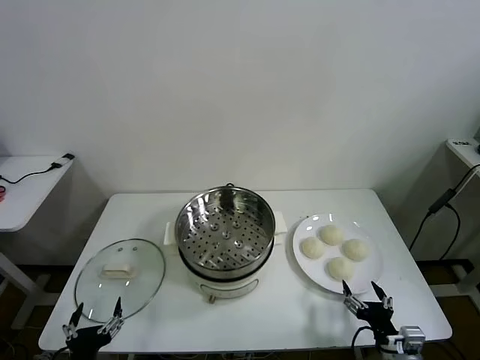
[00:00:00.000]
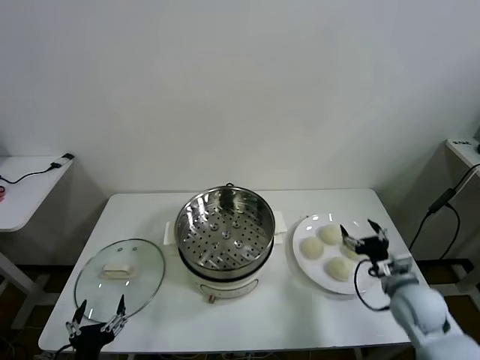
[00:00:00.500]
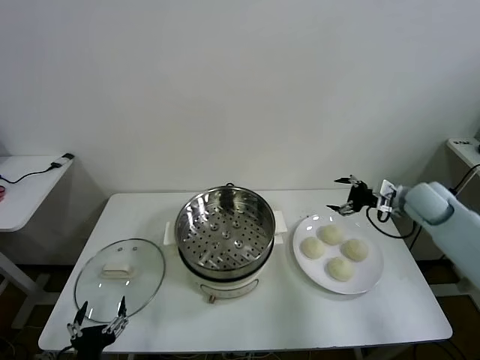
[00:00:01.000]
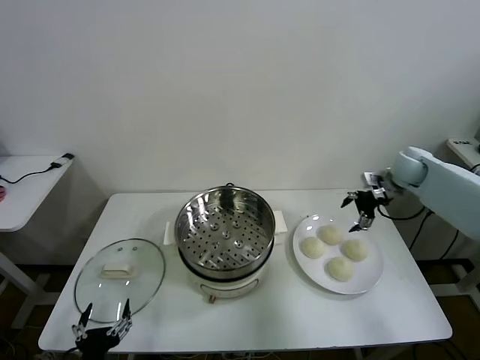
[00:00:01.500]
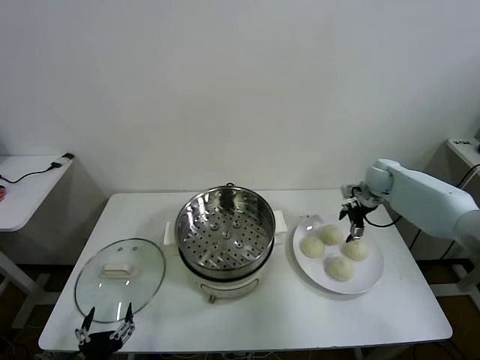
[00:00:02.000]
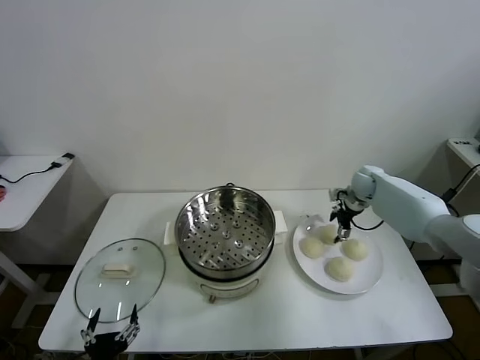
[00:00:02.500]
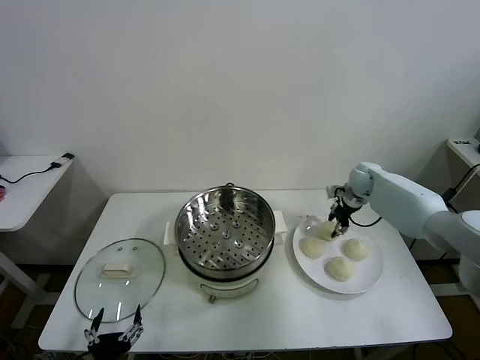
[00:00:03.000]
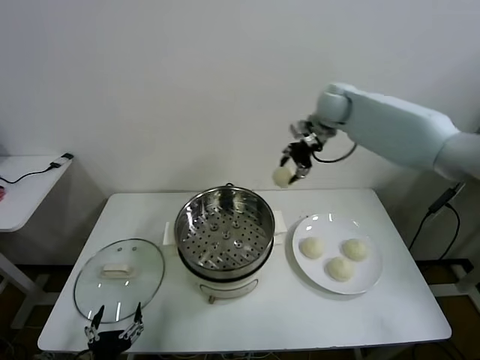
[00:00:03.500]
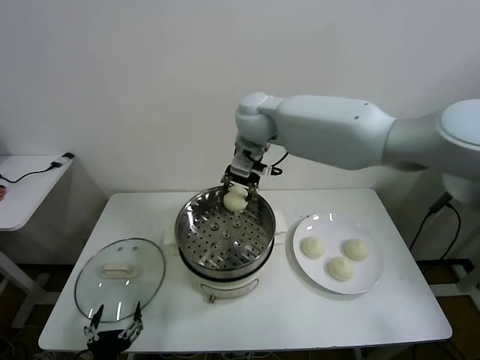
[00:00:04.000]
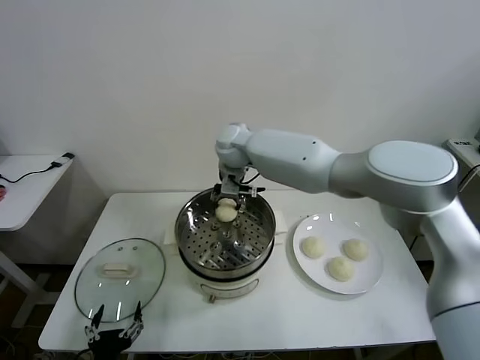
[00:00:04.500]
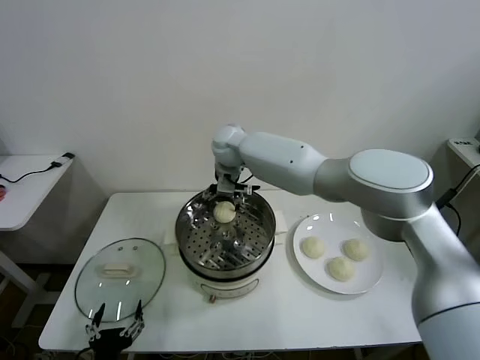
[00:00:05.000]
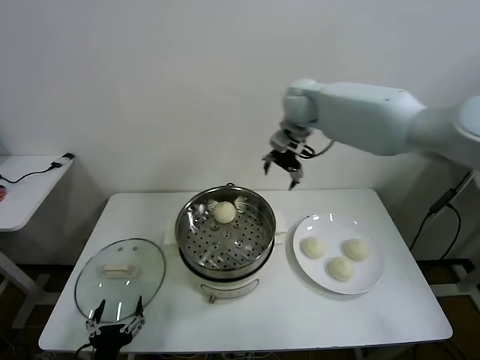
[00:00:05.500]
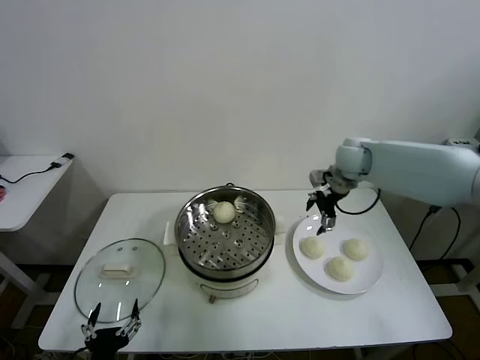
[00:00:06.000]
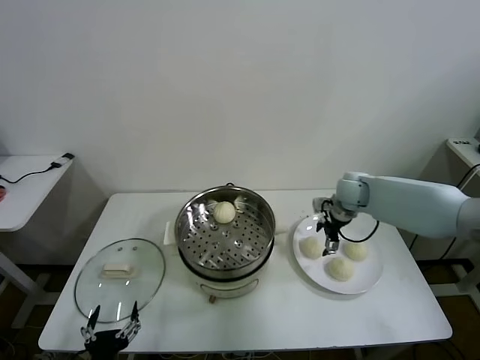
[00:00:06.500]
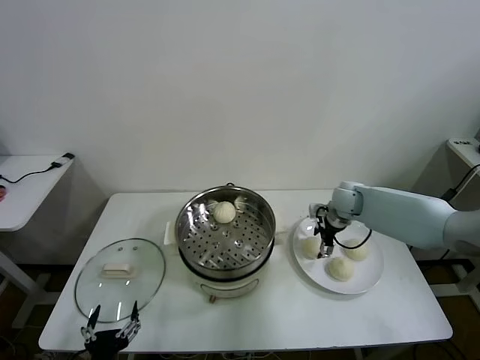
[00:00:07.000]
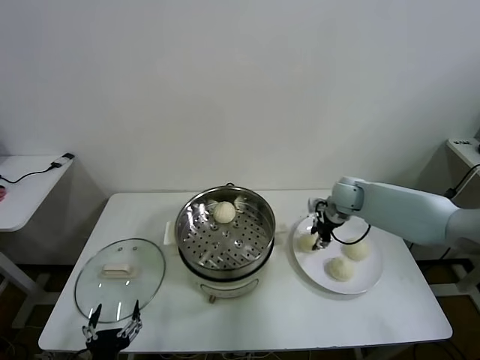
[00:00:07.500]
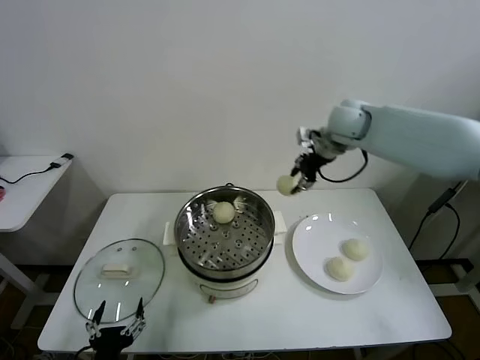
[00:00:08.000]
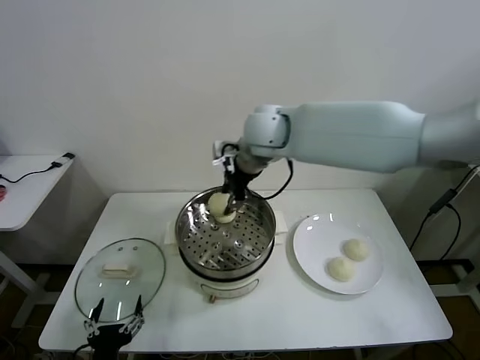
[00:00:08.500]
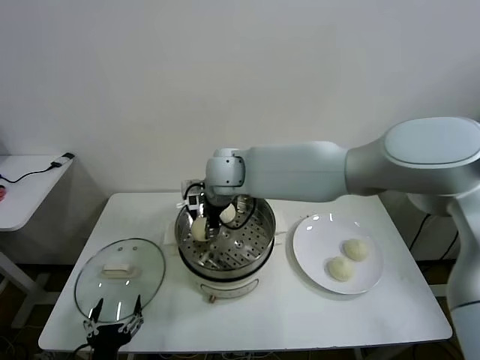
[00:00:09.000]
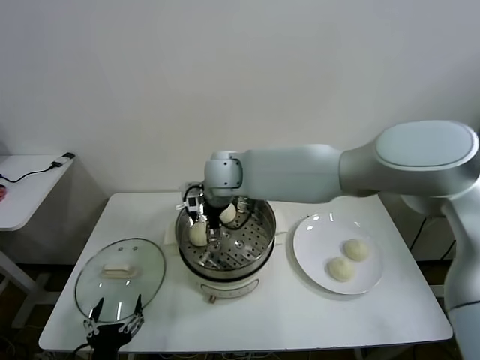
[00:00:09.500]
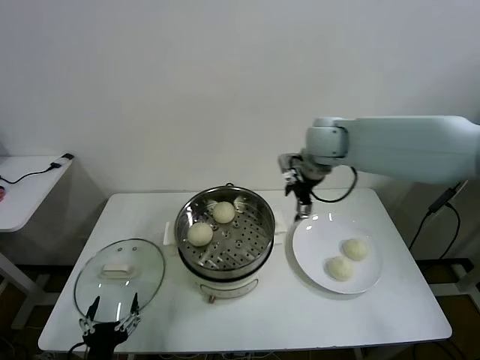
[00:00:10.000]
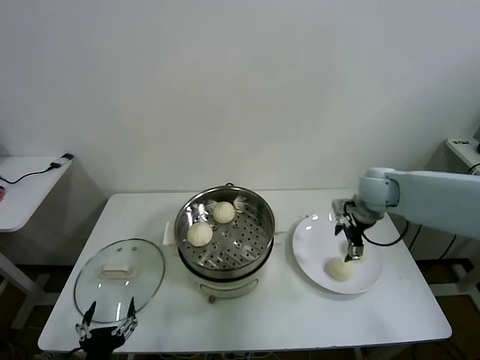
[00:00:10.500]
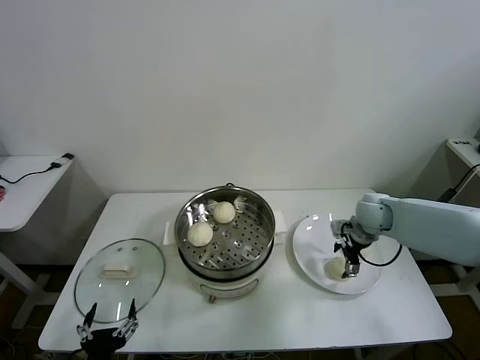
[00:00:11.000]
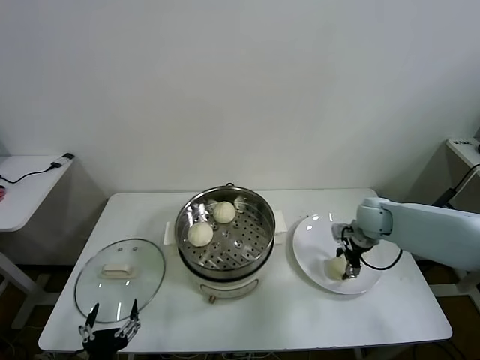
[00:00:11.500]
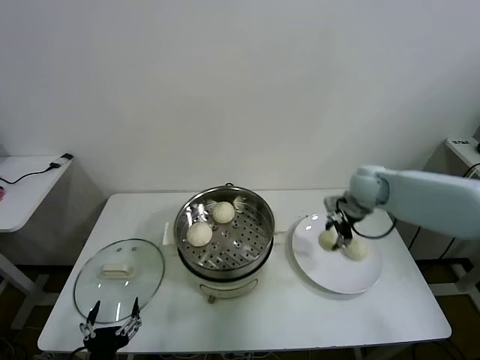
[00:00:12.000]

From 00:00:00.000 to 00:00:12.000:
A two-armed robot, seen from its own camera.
Task of the whole recording: take steamed baozi put them in steamer then cover it.
Step, from 00:00:00.000 to 00:00:02.500: Grasp the baozi in the plate with right gripper.
Step, from 00:00:03.000 to 00:00:04.500: Place the baozi on the steamer with right gripper.
Step, from 00:00:05.000 to 00:00:07.000: Grasp the baozi in the plate with right gripper.
Step, from 00:00:07.500 to 00:00:09.000: Place the baozi on the steamer with right gripper.
Step, from 00:00:09.500 to 00:00:11.500: Grasp the baozi in the plate with right gripper.
From 00:00:02.000 to 00:00:04.000: The right gripper is displaced to the left and upward by roughly 40 cm, and closes.
From 00:00:04.000 to 00:00:06.000: The right gripper travels to the right and downward by about 30 cm, and opens its fingers.
From 00:00:06.000 to 00:00:08.000: The right gripper shifts approximately 15 cm upward and to the left, and closes.
From 00:00:08.000 to 00:00:10.000: The right gripper shifts roughly 5 cm downward, moves some 25 cm to the left and comes back, and opens.
From 00:00:10.000 to 00:00:12.000: The right gripper is displaced downward and to the right by roughly 10 cm, and closes.

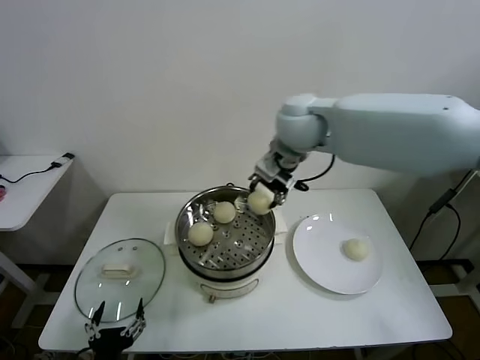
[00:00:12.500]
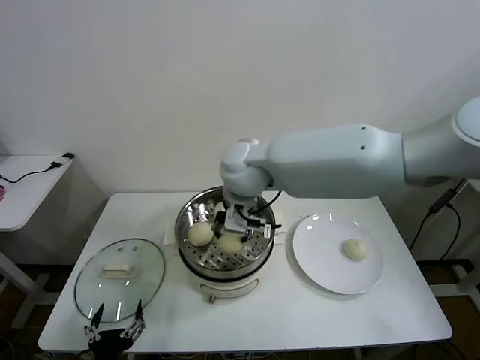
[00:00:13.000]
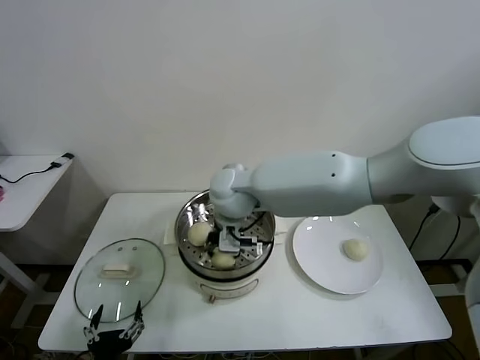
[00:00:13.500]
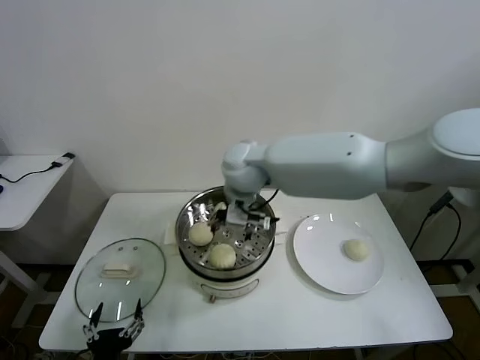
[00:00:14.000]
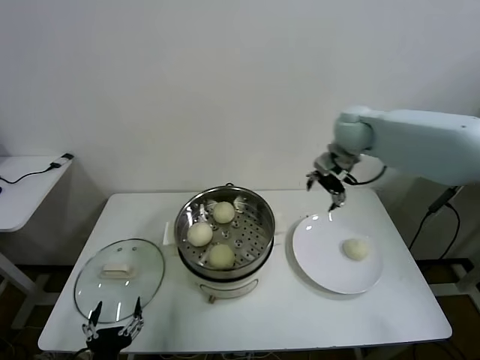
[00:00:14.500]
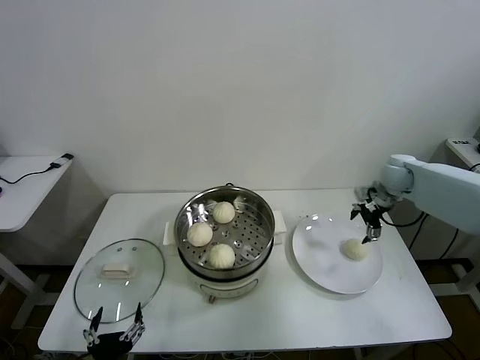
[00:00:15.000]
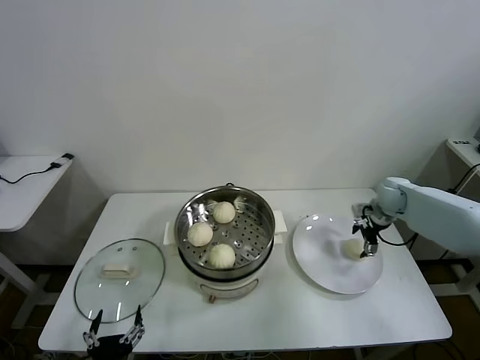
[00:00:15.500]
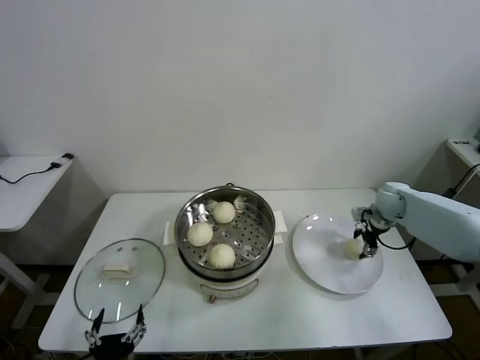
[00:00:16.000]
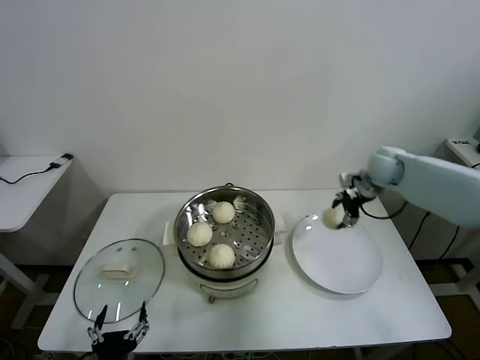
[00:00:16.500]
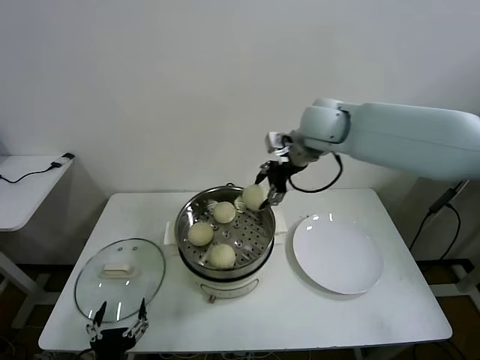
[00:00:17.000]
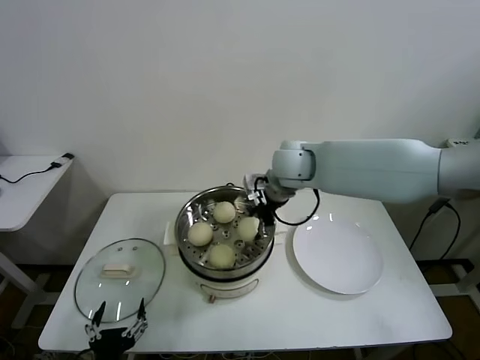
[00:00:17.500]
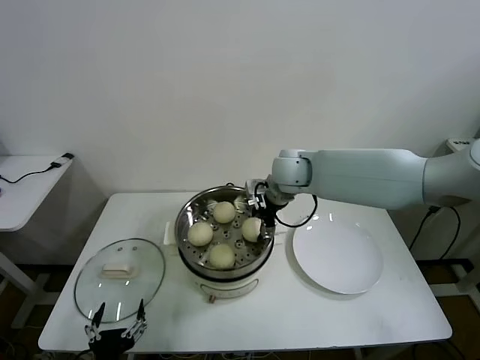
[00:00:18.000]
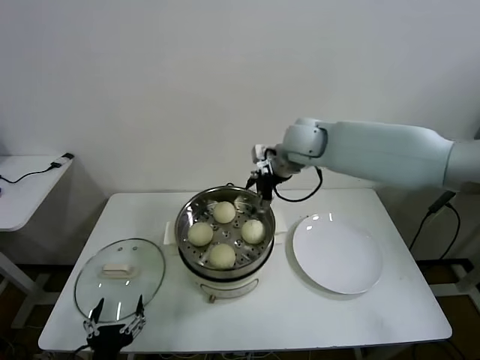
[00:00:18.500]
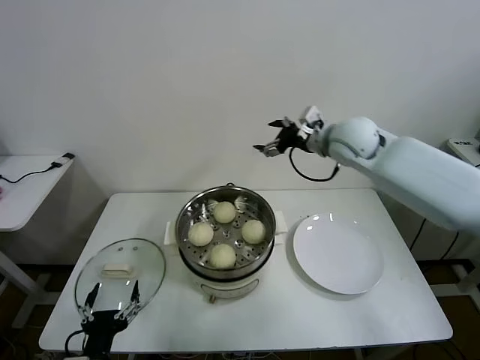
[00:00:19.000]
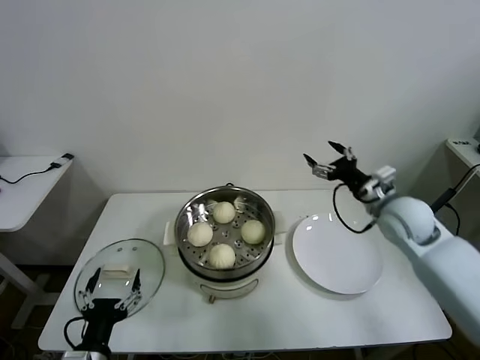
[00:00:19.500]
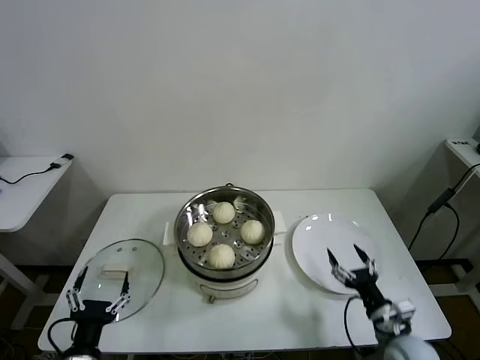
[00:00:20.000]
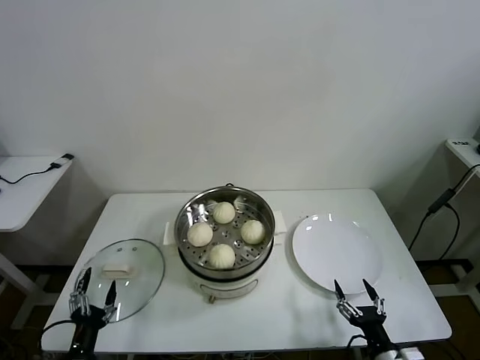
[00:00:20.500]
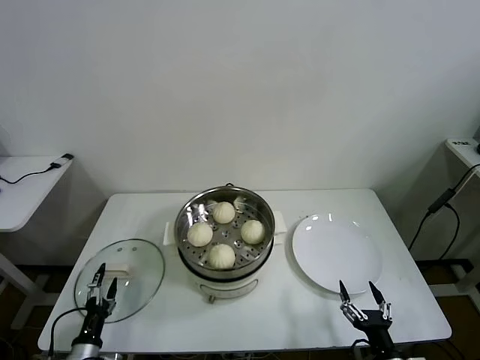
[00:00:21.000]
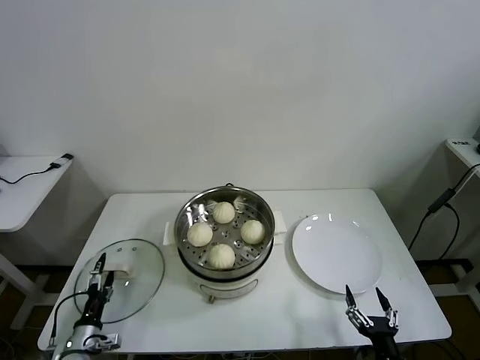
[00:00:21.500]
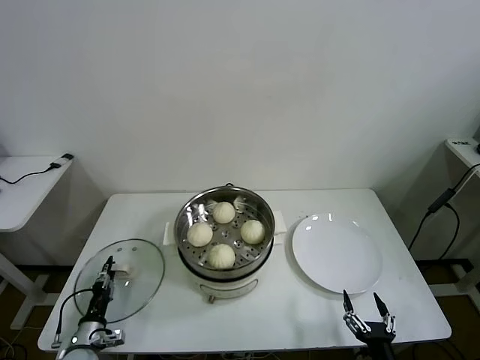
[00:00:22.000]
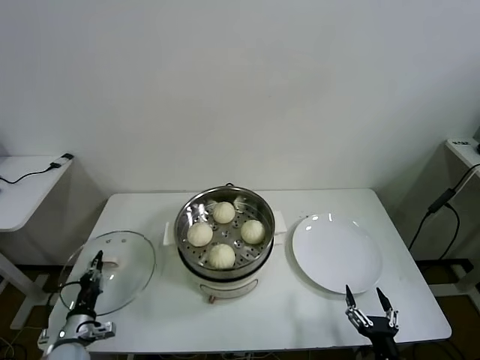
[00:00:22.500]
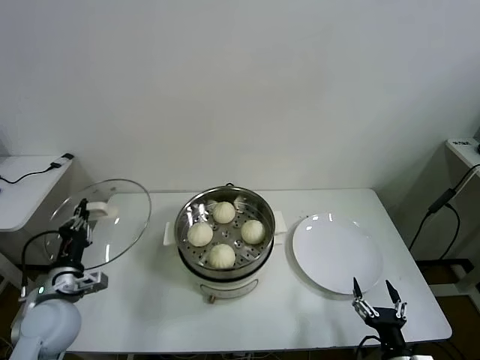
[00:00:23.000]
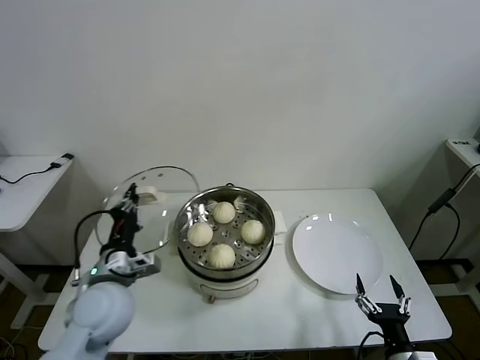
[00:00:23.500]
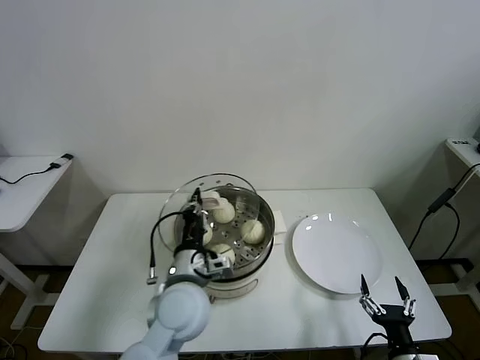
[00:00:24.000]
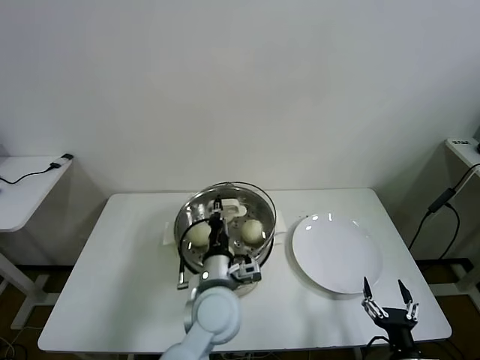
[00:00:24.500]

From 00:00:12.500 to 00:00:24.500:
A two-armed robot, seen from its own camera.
Task of the whole recording: take steamed baozi put them in steamer then cover it.
Step, from 00:00:14.000 to 00:00:16.000: Grasp the baozi in the plate with right gripper.
Step, from 00:00:16.500 to 00:00:18.000: Place the baozi on the steamer with right gripper.
Step, from 00:00:18.500 to 00:00:22.000: Grasp the pot lid with left gripper.
From 00:00:12.500 to 00:00:14.500: The right gripper goes roughly 20 cm to the right and forward, and opens its fingers.
From 00:00:14.500 to 00:00:16.500: The right gripper heads downward and to the right, covering approximately 10 cm, and closes its fingers.
From 00:00:16.500 to 00:00:18.500: The right gripper heads to the left, covering about 20 cm, and opens its fingers.
From 00:00:18.500 to 00:00:20.500: The right gripper shifts some 60 cm backward, downward and to the right, while the left gripper goes some 10 cm to the left and downward.
From 00:00:20.500 to 00:00:22.500: The left gripper shifts about 15 cm forward, to the left and downward, and closes its fingers.
From 00:00:22.500 to 00:00:24.500: The left gripper is displaced to the right and upward by approximately 40 cm.

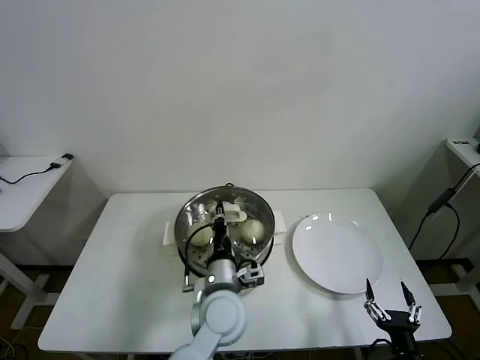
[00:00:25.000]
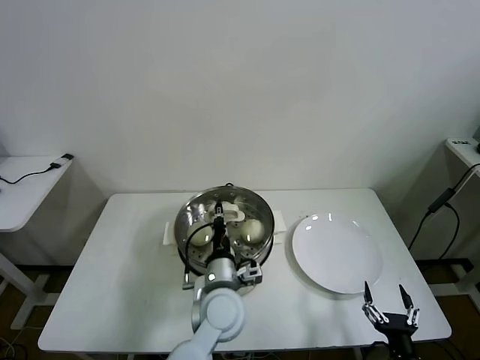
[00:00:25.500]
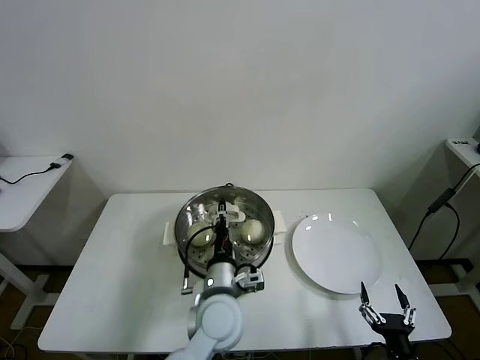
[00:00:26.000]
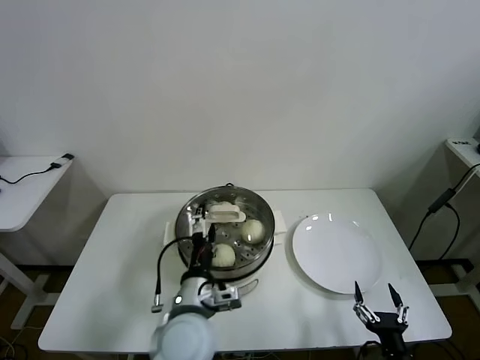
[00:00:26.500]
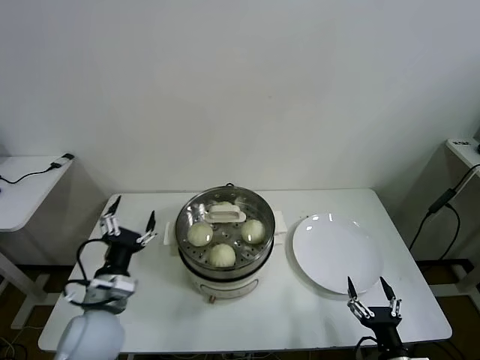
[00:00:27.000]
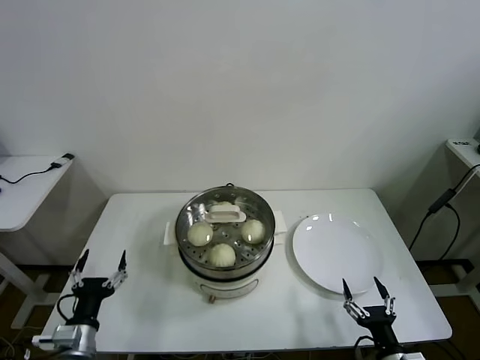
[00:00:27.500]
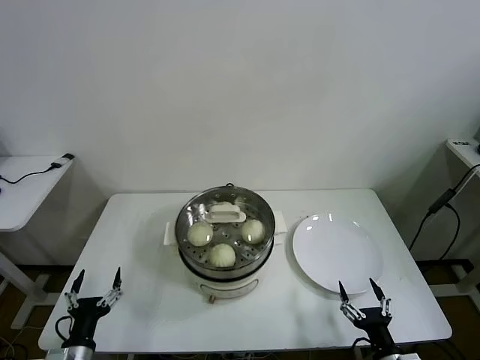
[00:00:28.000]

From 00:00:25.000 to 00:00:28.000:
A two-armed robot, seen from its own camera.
Task of the whole recording: take steamed baozi put them in steamer then cover it.
From 00:00:25.000 to 00:00:26.500: The left gripper shifts by some 5 cm, and opens up.
From 00:00:26.500 to 00:00:28.000: The left gripper is displaced to the left and downward by some 30 cm.
